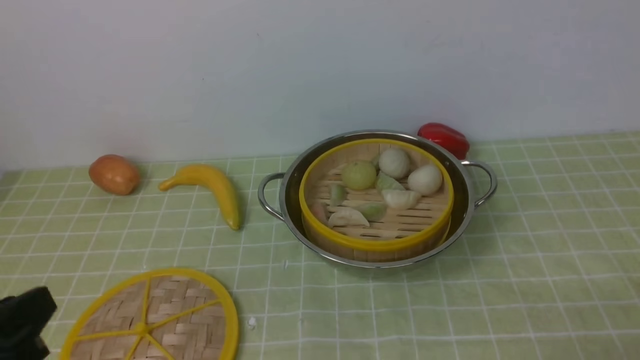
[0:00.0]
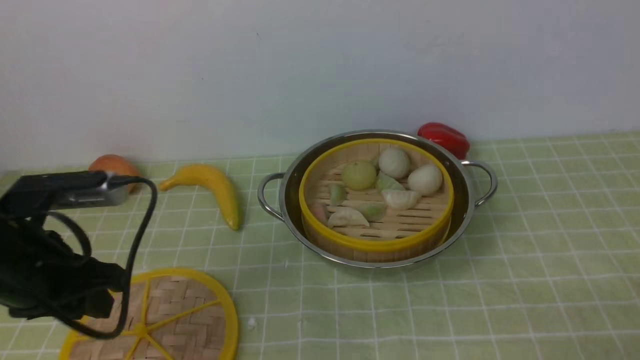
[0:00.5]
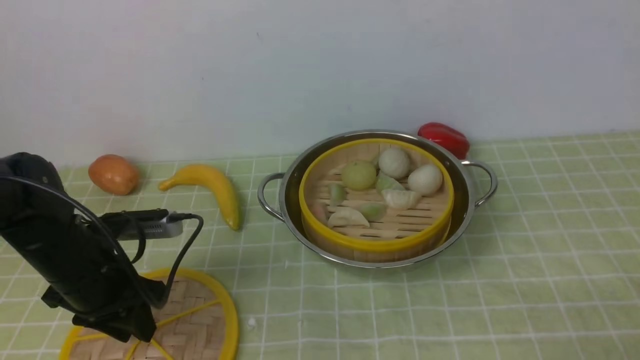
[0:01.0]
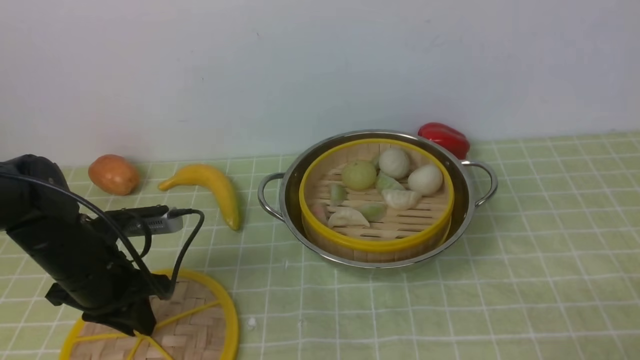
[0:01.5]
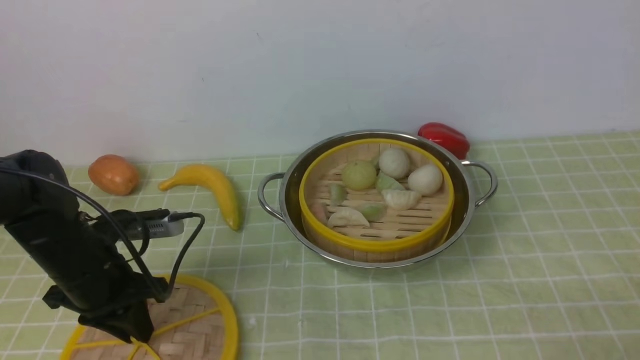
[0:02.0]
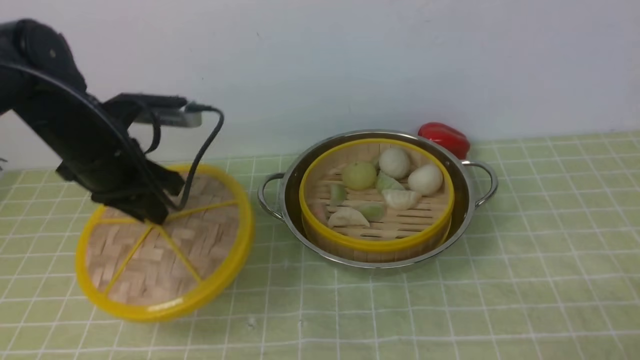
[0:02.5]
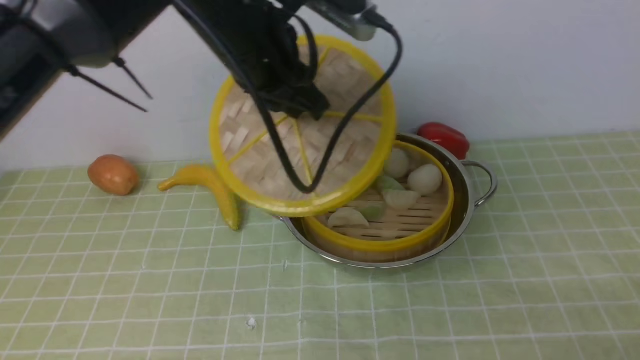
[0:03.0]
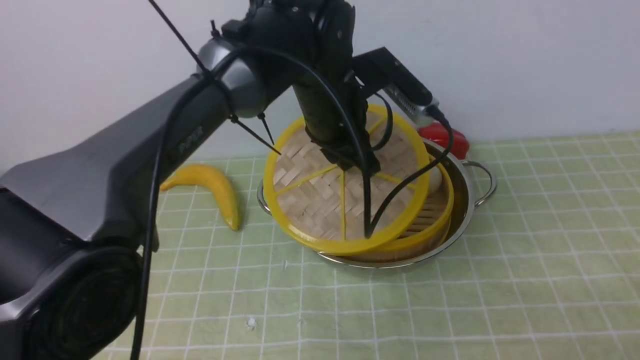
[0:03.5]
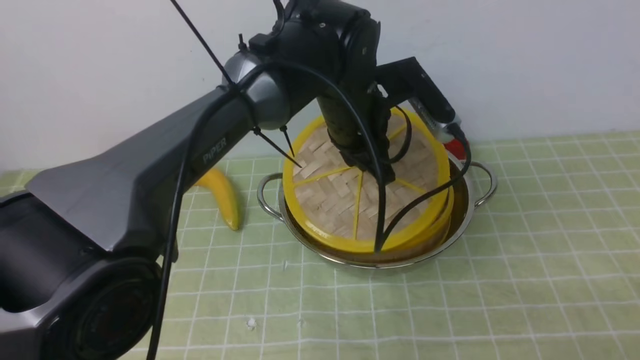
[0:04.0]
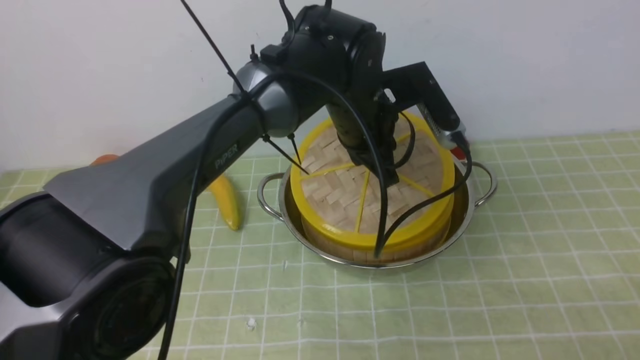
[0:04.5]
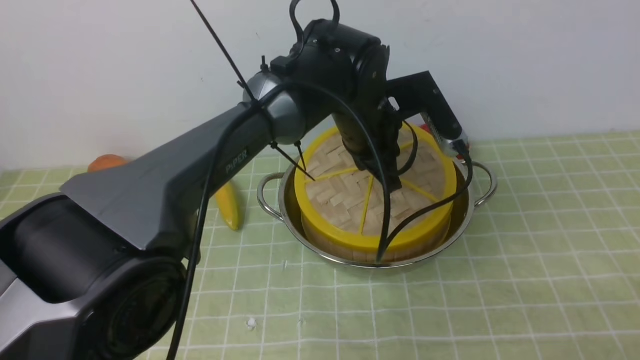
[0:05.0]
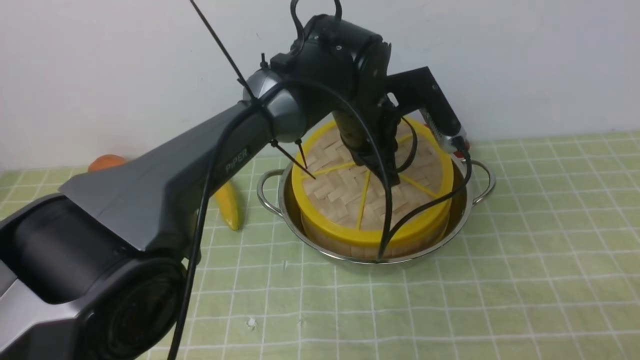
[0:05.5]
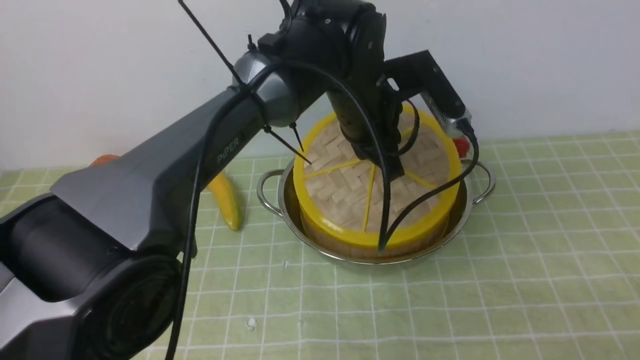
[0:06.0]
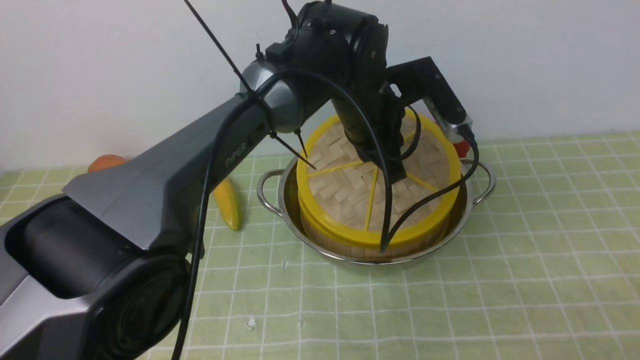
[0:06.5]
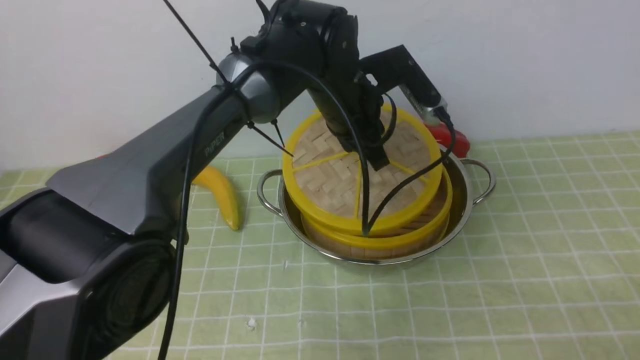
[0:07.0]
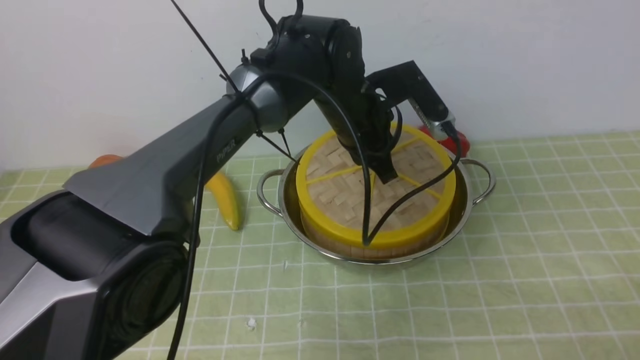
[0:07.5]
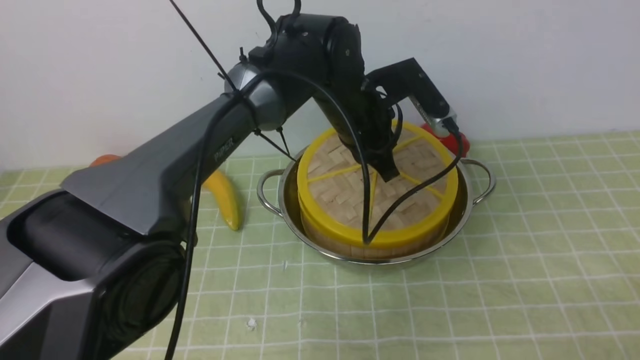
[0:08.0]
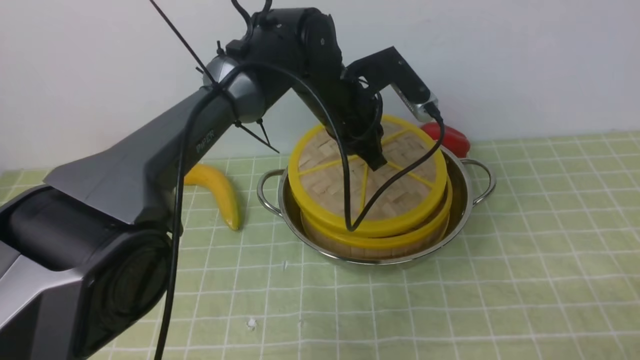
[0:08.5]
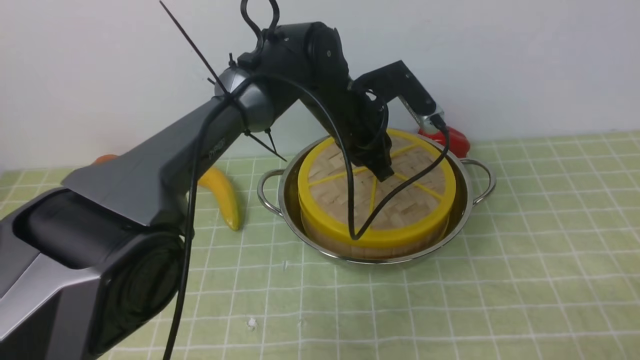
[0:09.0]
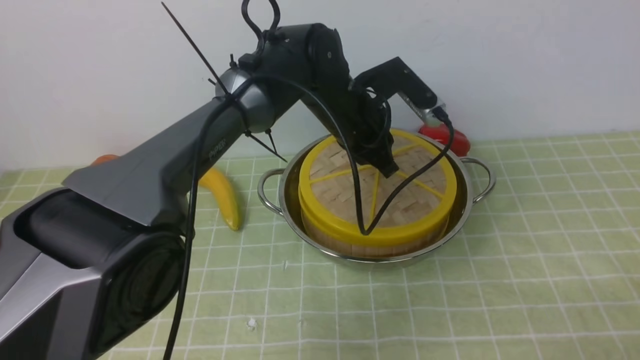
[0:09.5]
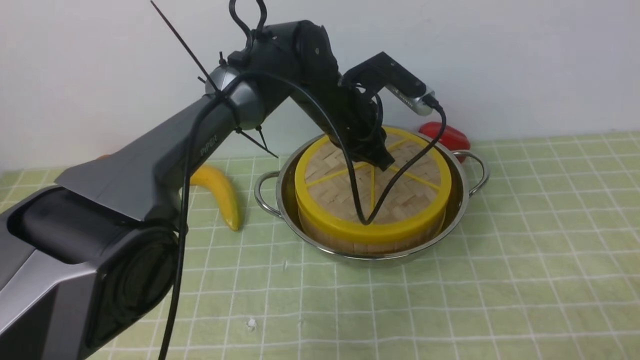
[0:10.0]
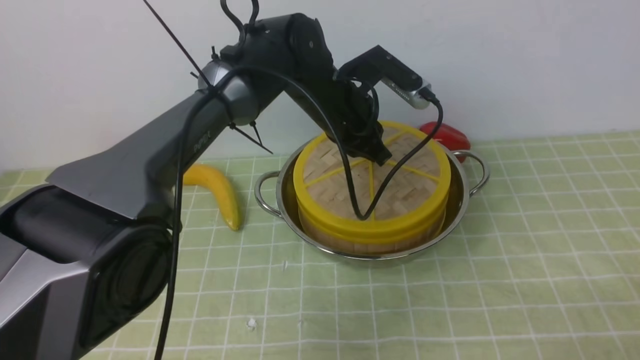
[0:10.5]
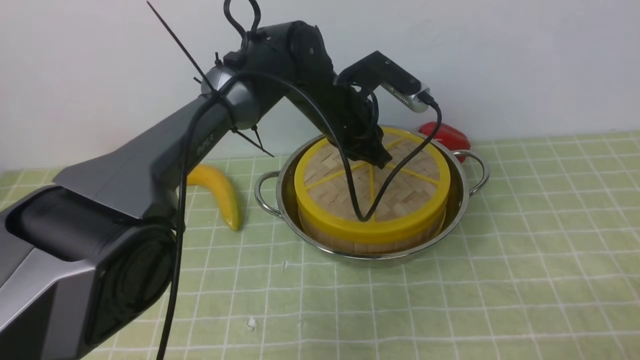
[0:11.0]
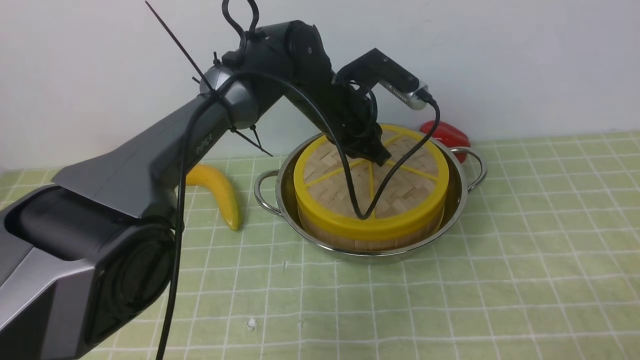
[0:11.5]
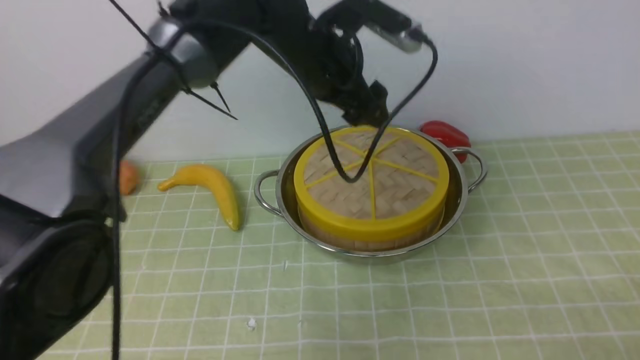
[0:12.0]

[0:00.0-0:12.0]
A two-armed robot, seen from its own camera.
Task of the whole recording: place the steamer in the pot on the green tablecloth, and put the lid on the steamer.
Step, 0:00.0 to 0:02.0: use the left arm to lift the lid of the steamer.
0:00.0 to 0:02.0: The left gripper shifts about 25 cm forward and downward, and closes.
0:02.0 to 0:04.0: The left gripper goes about 25 cm to the right.
0:04.0 to 0:08.0: There are only small adjustments of the grippers.
0:08.0 to 0:10.0: The grippers stay close to where they were, moving slightly.
0:10.0 to 0:12.0: The left gripper shifts some 10 cm upward, and opens its fingers.

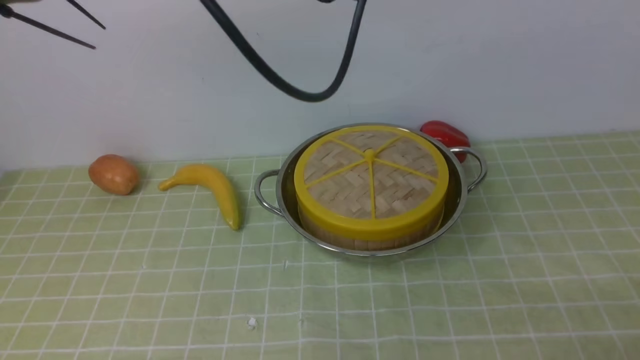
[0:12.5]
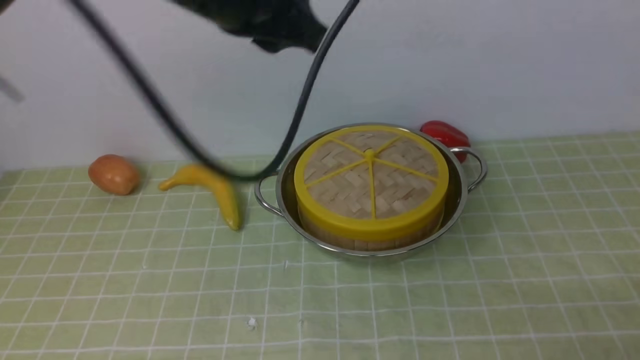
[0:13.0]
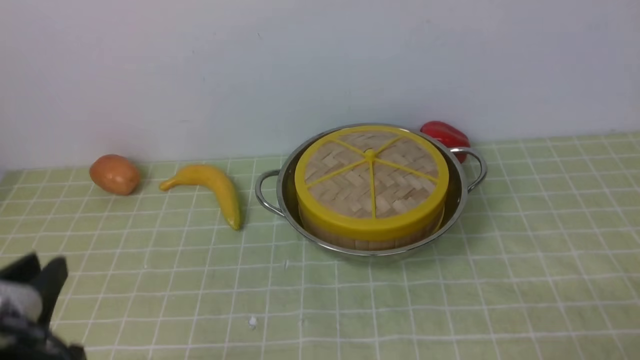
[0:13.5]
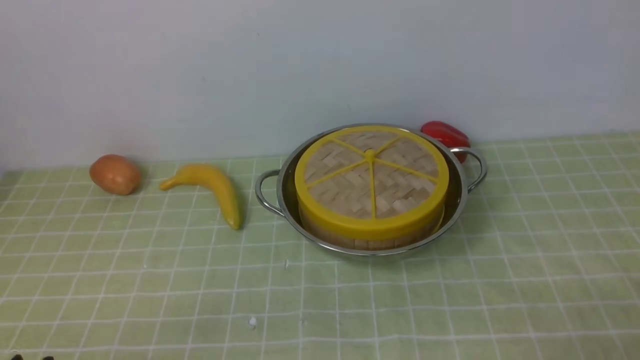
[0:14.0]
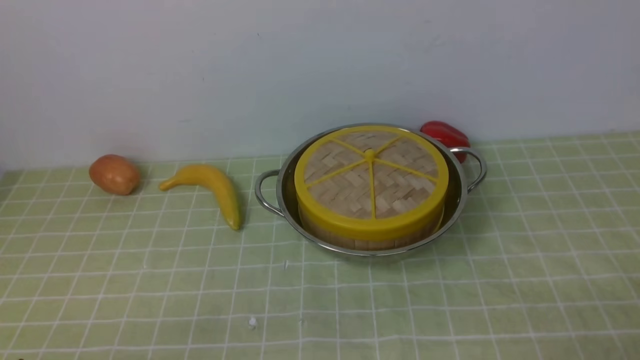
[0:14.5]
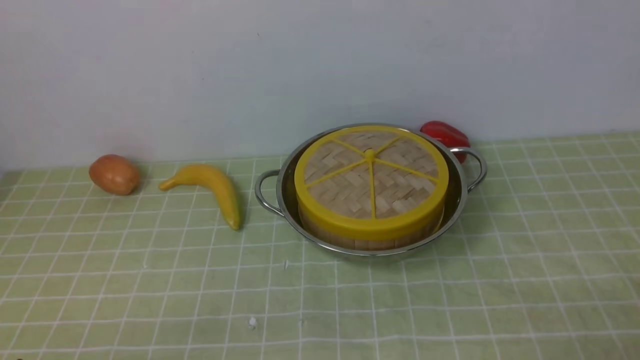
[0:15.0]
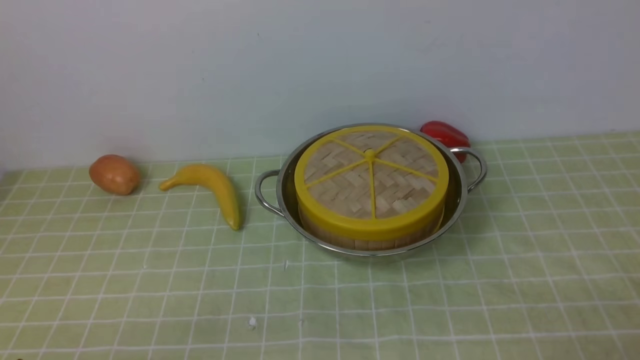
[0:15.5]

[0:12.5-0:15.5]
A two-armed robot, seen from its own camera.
Task of the whole recording: place the steamer in the pot on the green tablecloth, and put the lid on the steamer.
0:12.5 to 0:14.0: The left gripper travels backward, downward and to the left by about 50 cm, and closes its fingers.
0:14.0 to 0:15.5: Both grippers stay about where they are.
